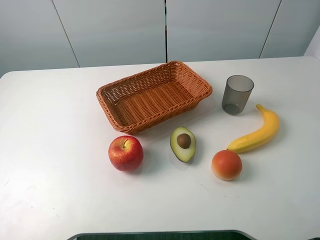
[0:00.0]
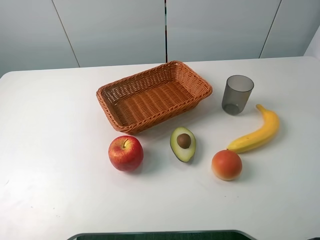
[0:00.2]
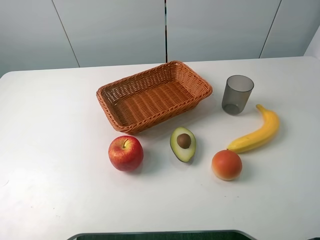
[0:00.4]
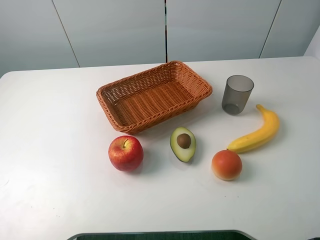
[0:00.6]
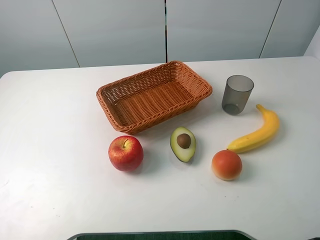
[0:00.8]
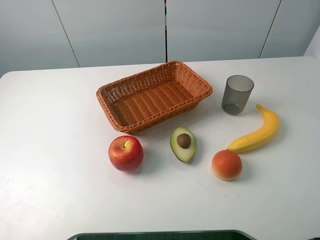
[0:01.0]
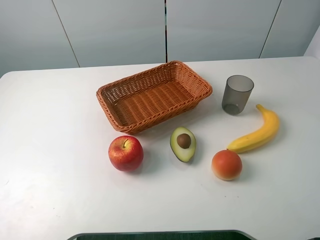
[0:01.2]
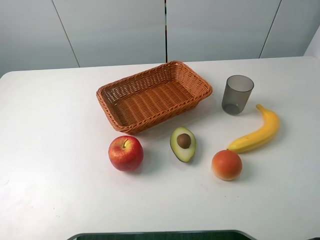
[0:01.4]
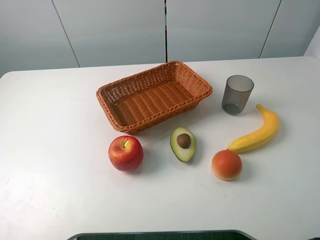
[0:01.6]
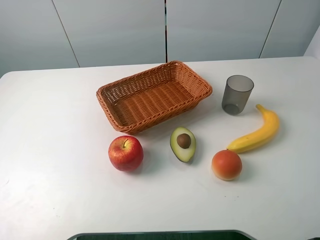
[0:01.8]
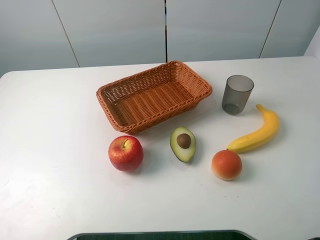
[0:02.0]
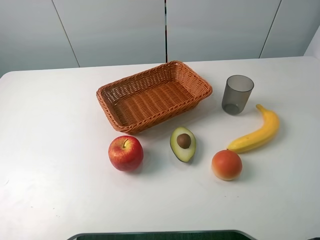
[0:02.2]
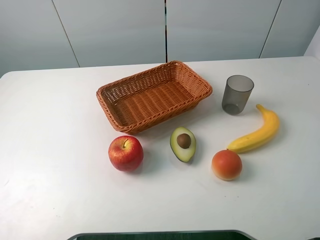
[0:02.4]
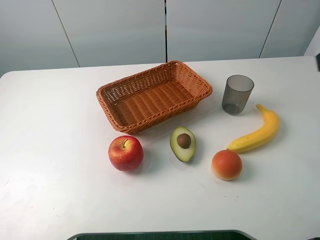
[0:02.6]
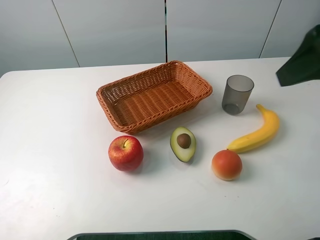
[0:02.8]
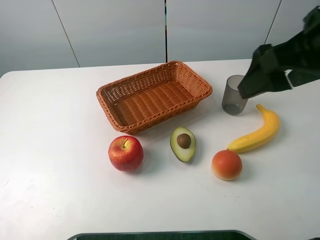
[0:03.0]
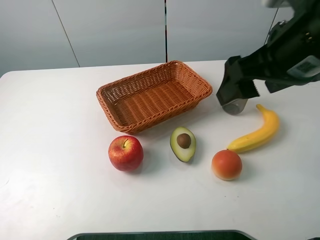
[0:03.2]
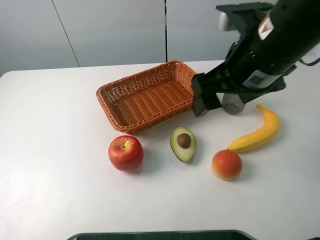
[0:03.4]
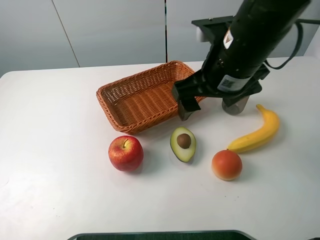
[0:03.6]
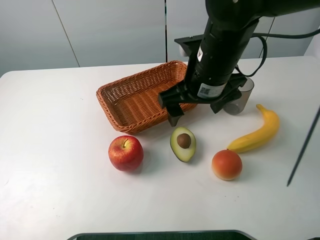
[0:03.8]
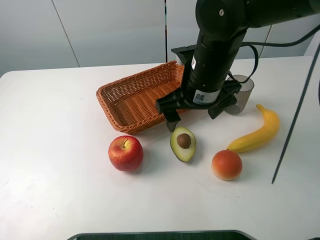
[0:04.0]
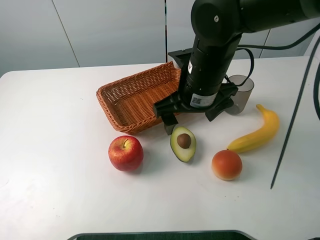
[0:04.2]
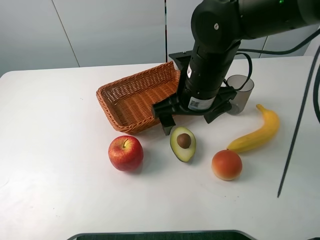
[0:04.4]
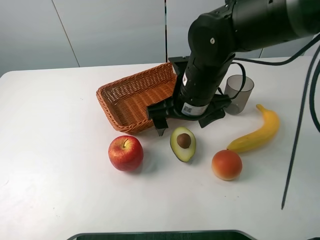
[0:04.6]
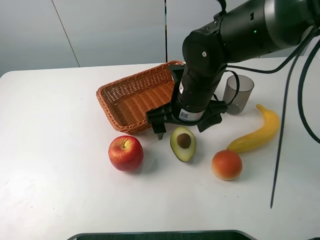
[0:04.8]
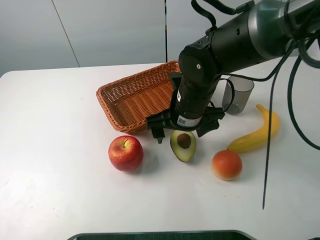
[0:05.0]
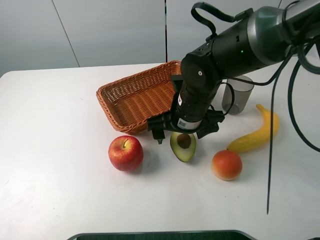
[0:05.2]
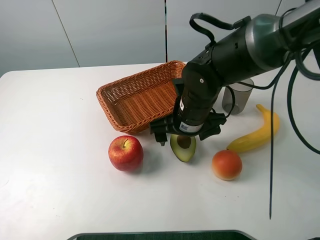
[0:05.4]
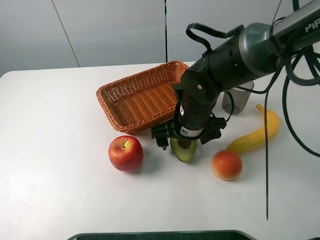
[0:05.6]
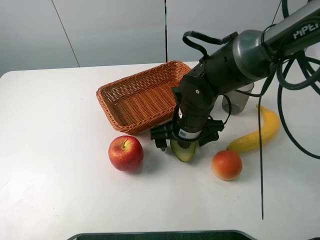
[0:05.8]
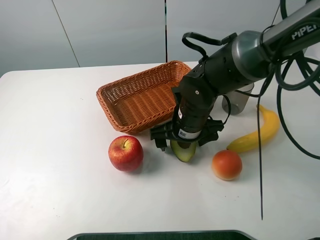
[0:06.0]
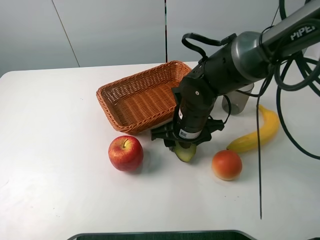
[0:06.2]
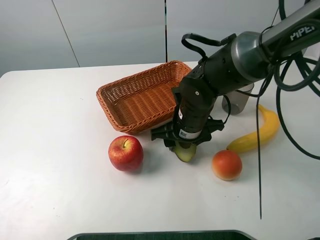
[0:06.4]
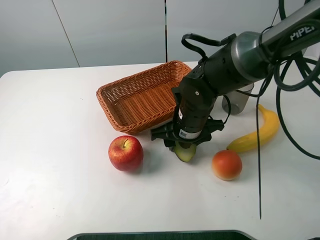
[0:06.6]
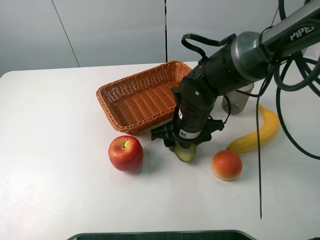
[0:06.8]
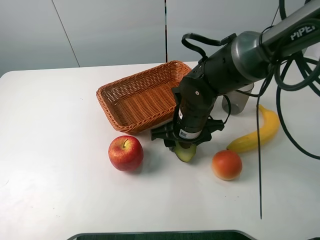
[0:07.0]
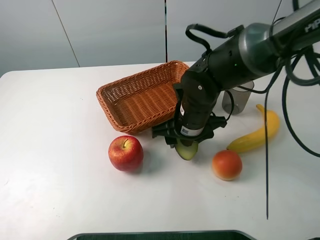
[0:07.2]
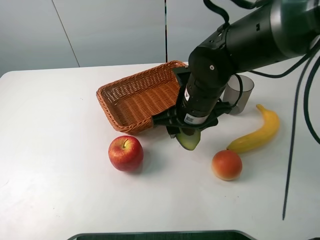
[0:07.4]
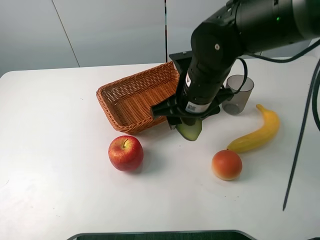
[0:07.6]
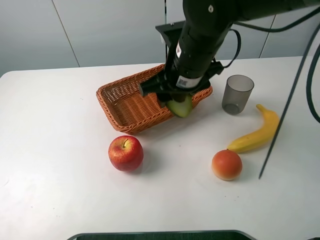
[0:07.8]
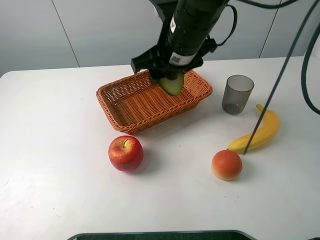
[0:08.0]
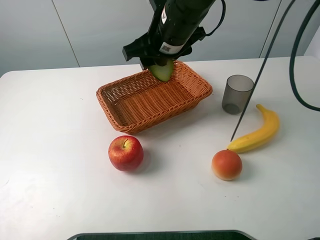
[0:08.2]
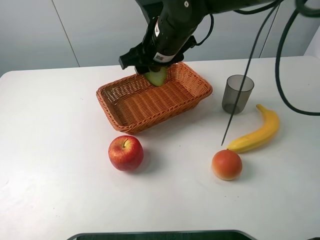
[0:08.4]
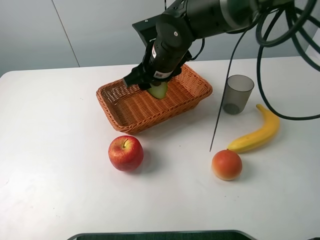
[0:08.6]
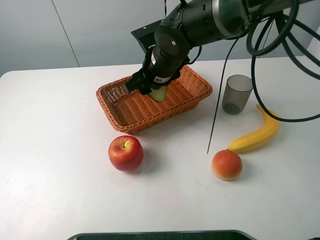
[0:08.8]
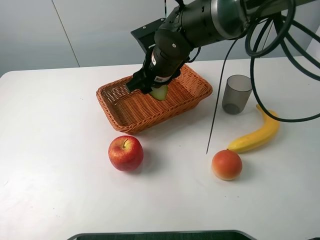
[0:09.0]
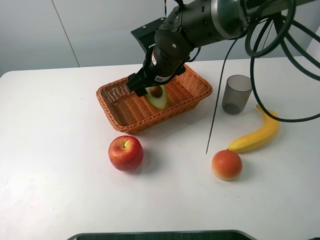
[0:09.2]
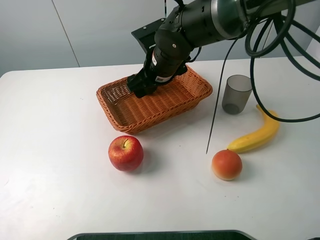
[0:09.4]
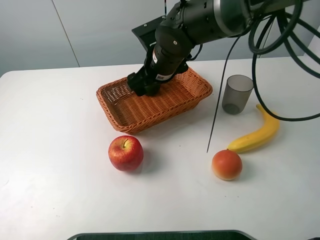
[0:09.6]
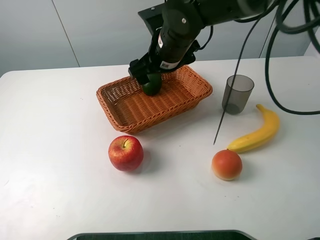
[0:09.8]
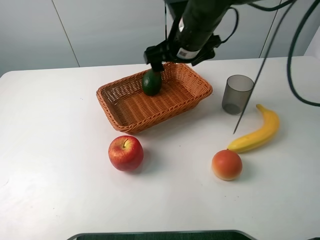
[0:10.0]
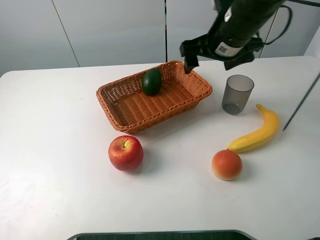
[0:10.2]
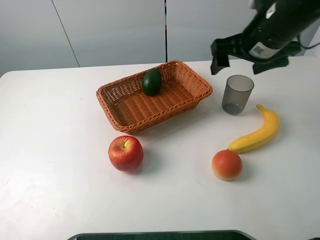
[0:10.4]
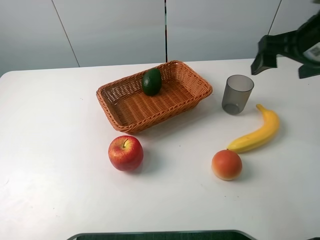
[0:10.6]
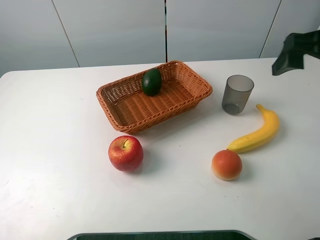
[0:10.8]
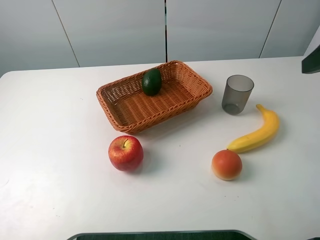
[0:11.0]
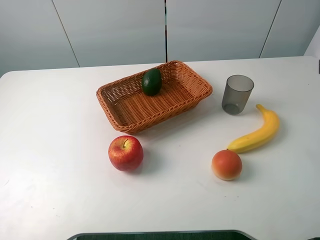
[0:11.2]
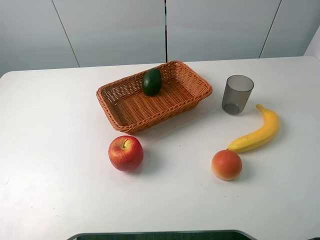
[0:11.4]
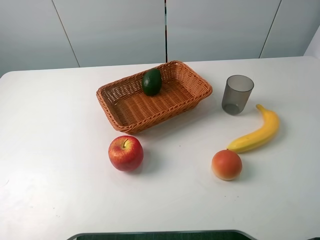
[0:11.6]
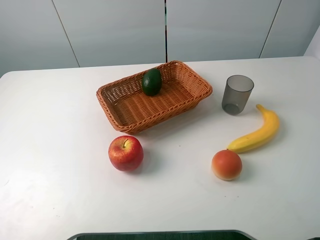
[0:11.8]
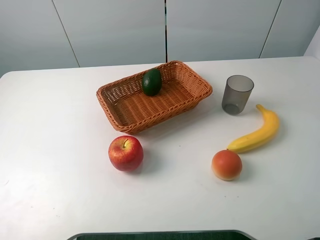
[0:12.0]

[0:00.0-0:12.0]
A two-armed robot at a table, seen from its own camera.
Task of the whole recording: randomly pick up an item from the table and put it in the basket.
Step, 0.0 to 6.4 s: Grasp the avocado with the right gripper.
Step, 6.6 to 10.0 s: Place the avocado into the basket with the right gripper.
0.0 to 1.6 s: Both grippers stay put.
1.6 to 3.0 s: The right gripper moves forward and to the left, some 20 cm.
3.0 to 4.4 s: The right gripper is displaced downward, to the left and forward by about 20 cm.
4.4 to 6.0 s: The right gripper moves downward, roughly 10 cm.
6.0 to 7.6 s: The right gripper travels upward by roughly 10 cm, and closes its fingers.
7.6 to 9.0 s: The right gripper travels forward and to the left by roughly 10 cm.
9.0 to 10.4 s: The right gripper travels to the right and upward by about 20 cm, and opens.
10.4 to 12.0 s: The right gripper shifts some 30 cm backward.

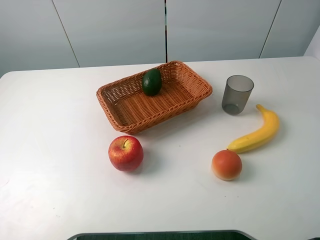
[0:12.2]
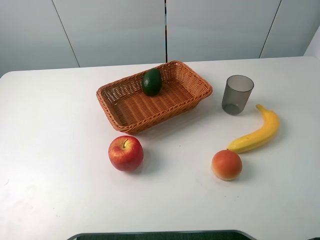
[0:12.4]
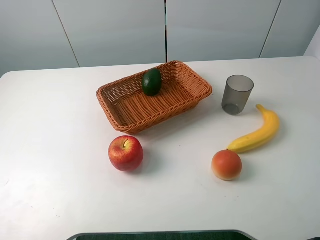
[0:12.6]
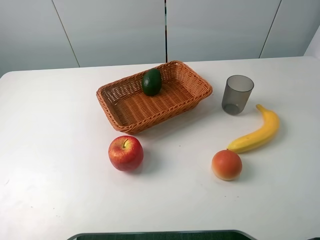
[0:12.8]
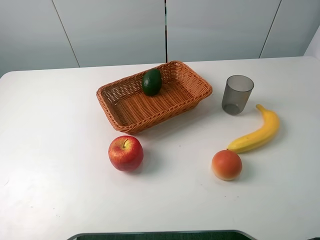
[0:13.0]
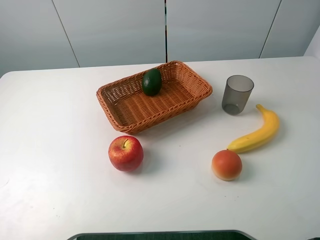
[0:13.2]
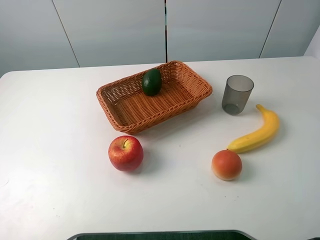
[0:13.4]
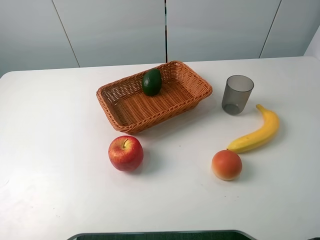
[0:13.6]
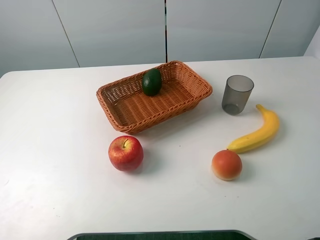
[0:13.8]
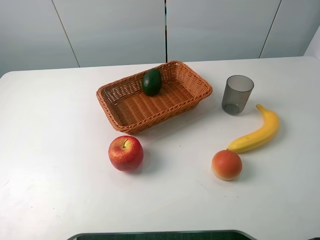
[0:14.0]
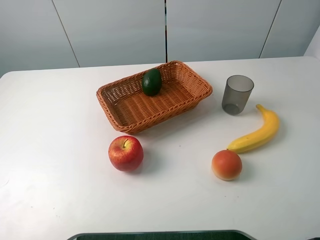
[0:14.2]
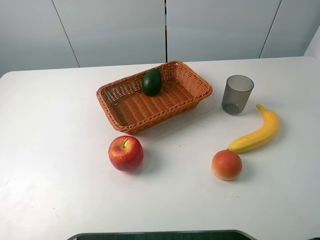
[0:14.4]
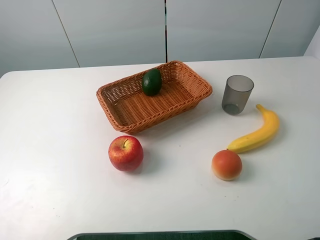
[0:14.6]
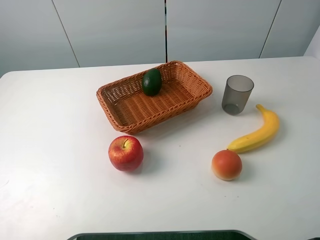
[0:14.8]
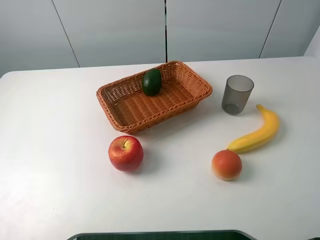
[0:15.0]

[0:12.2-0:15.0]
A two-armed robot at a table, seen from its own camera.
Task of the whole recording: randomly pick up an item from the table and put it in the basket.
13.6 to 15.0 s: The two grippers keep their place.

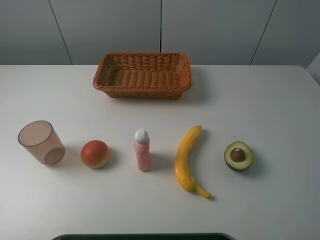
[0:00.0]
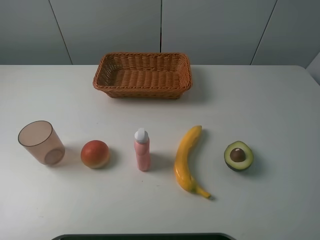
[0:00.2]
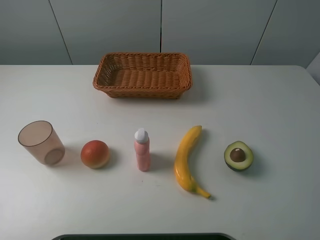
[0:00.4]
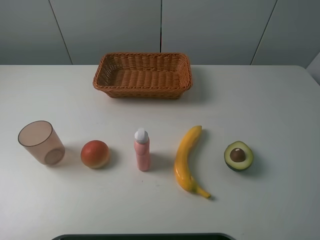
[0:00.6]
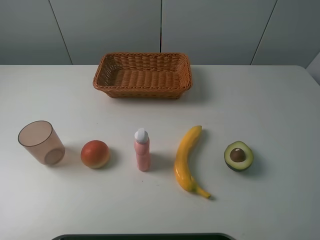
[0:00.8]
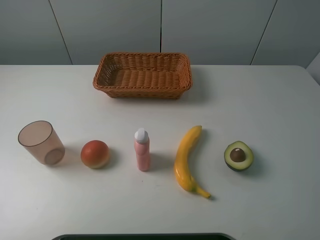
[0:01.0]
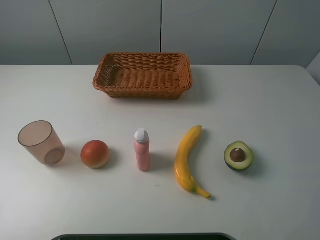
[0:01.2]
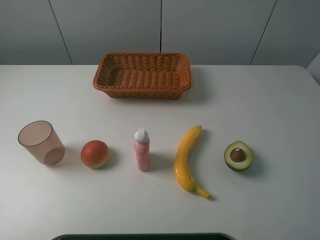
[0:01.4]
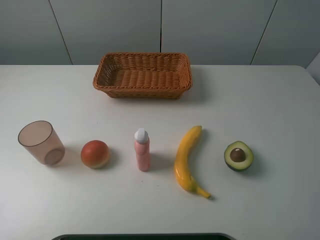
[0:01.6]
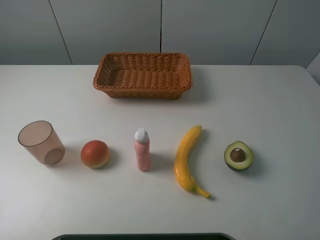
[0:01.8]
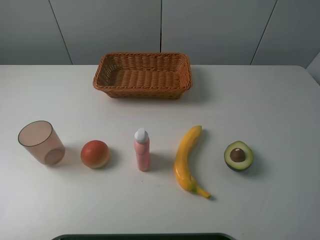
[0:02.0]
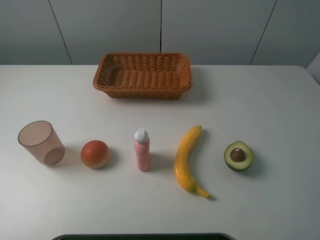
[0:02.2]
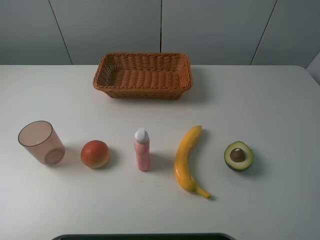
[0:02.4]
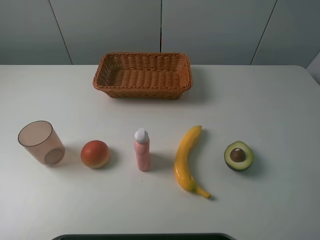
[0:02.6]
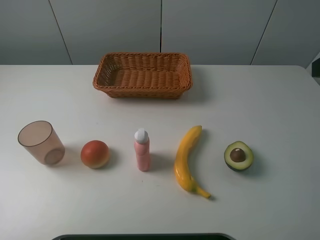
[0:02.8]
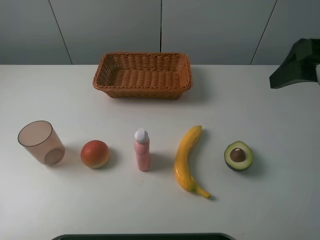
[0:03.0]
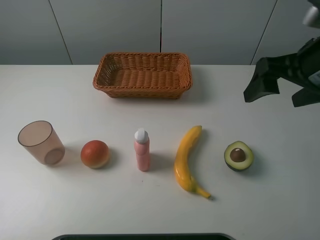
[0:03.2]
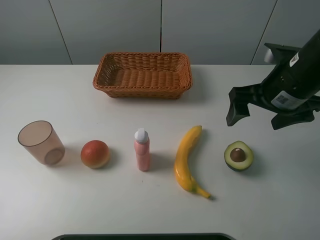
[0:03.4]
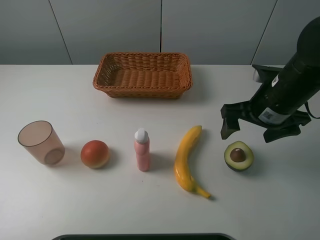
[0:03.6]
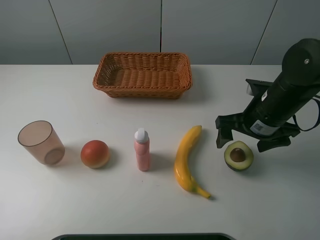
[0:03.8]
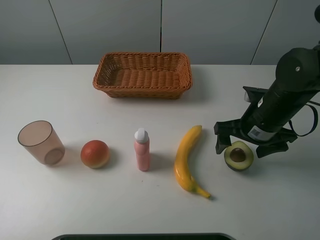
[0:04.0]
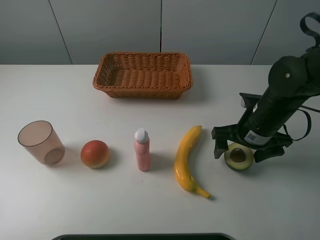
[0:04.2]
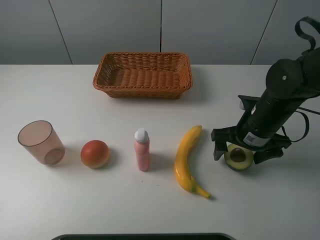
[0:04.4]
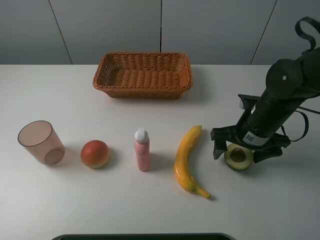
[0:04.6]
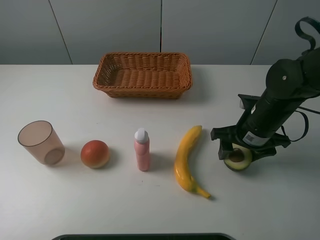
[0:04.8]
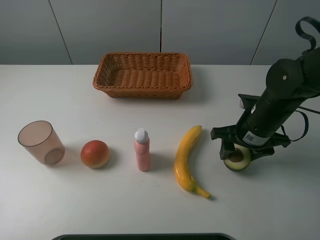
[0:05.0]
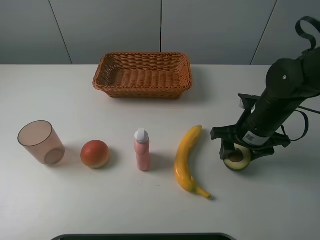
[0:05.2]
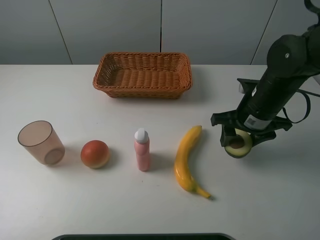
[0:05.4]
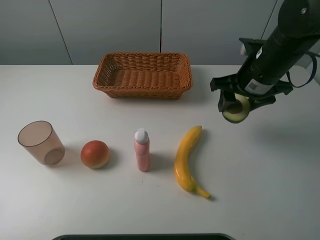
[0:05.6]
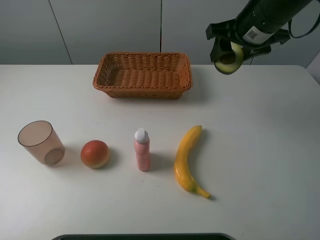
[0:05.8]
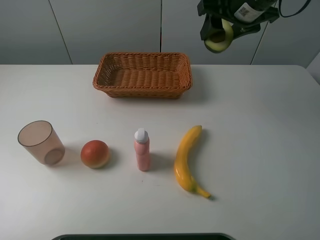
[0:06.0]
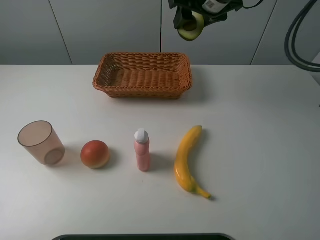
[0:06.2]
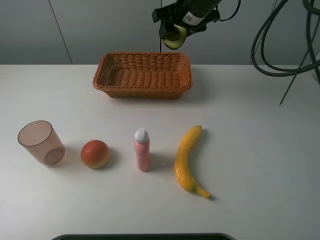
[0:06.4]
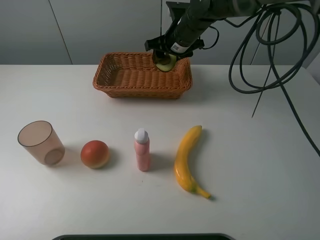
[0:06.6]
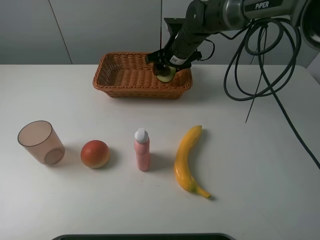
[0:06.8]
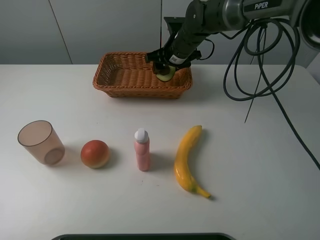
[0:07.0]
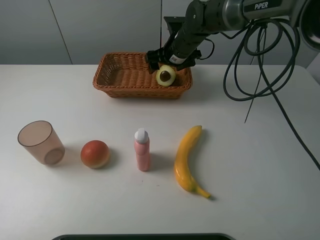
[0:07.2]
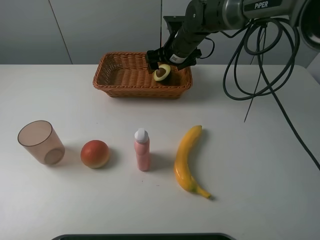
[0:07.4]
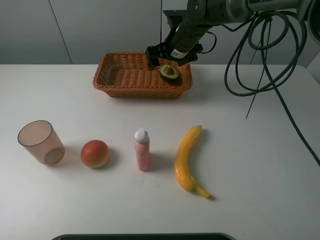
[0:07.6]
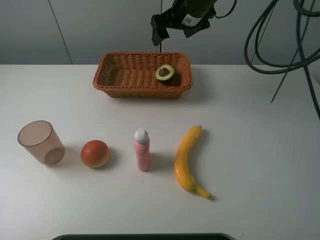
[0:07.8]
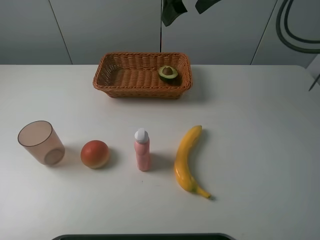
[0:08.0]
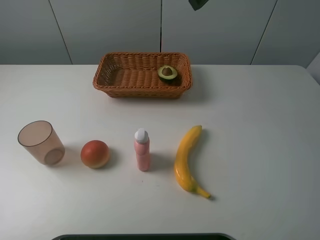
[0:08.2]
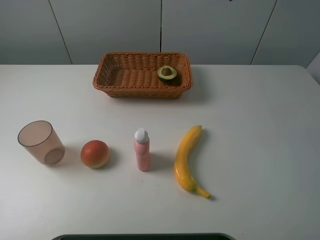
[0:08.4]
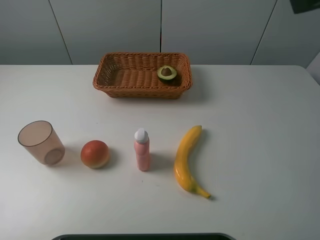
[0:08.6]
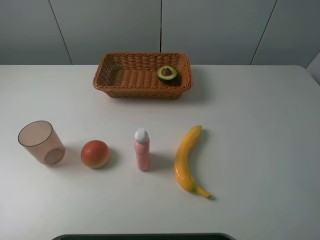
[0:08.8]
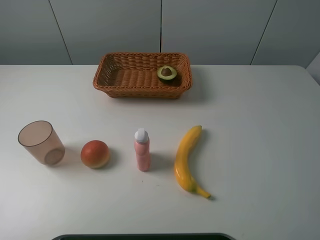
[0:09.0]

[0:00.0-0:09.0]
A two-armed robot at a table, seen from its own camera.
Task of the whole recording: randomly pick up an item from the table and put it in the basket.
Step, 0.0 to 5.0 s: Grasp the avocado with the right gripper.
Step, 5.2 to 7.2 s: Place the avocado into the basket with the right gripper.
0.0 to 1.6 s: The two grippers keep their place.
1.6 to 3.0 s: The right gripper travels forward by roughly 20 cm.
3.0 to 4.4 s: The right gripper is displaced downward by about 20 cm.
4.4 to 6.0 s: The right gripper shifts some 20 cm upward and forward, and closes up.
6.0 to 7.6 s: The right gripper travels downward, to the left and forward by approximately 20 cm, and opens its fingers.
7.6 to 9.0 s: The right gripper shifts roughly 50 cm backward, to the right and upward.
